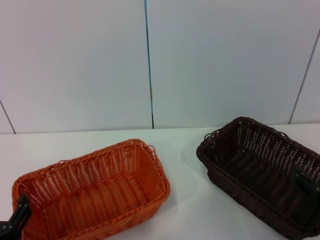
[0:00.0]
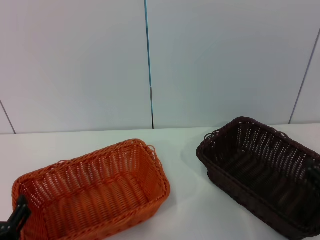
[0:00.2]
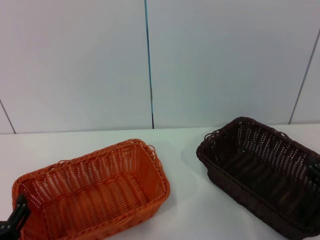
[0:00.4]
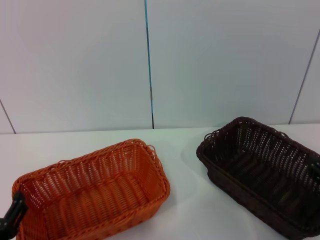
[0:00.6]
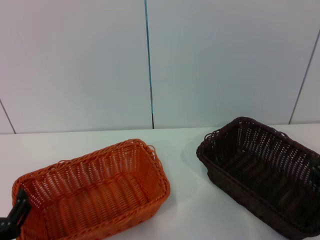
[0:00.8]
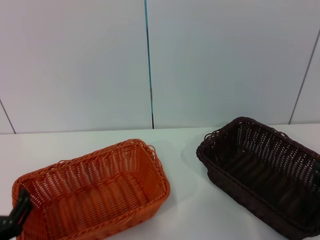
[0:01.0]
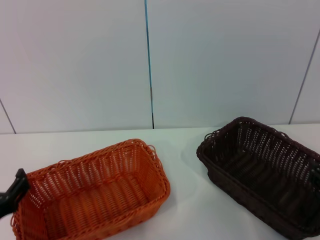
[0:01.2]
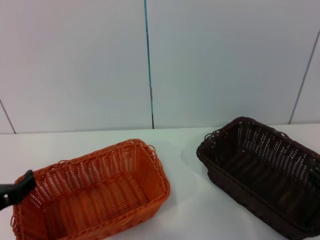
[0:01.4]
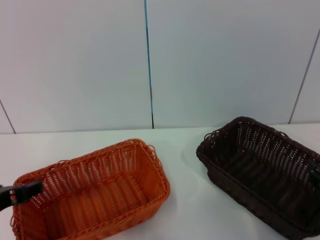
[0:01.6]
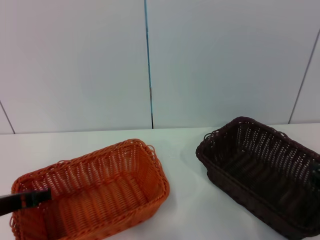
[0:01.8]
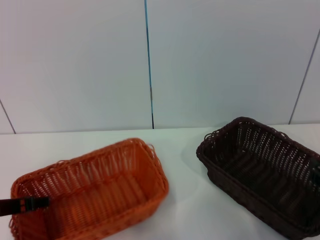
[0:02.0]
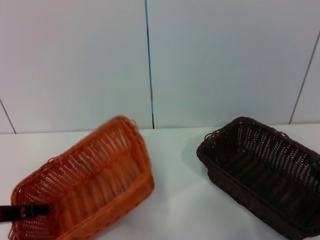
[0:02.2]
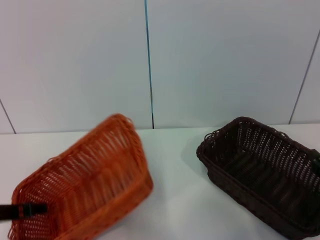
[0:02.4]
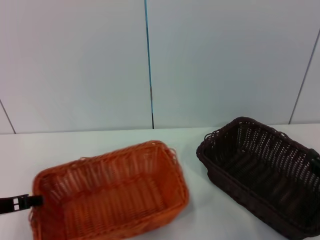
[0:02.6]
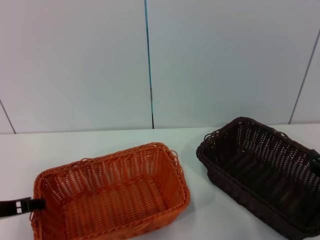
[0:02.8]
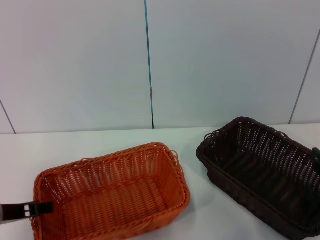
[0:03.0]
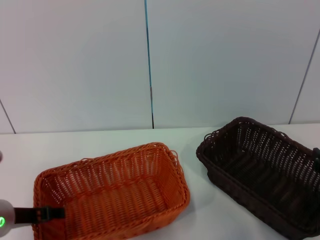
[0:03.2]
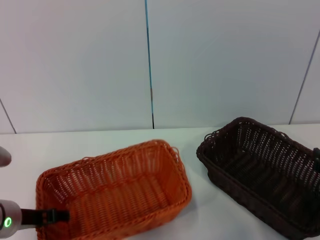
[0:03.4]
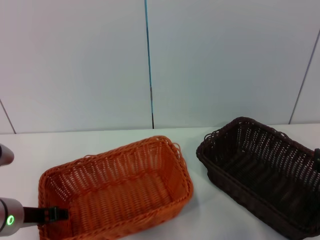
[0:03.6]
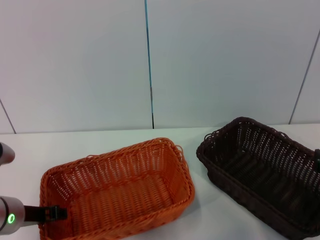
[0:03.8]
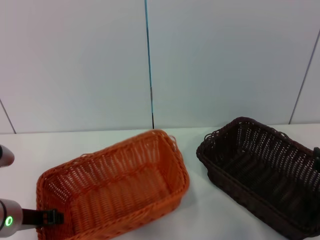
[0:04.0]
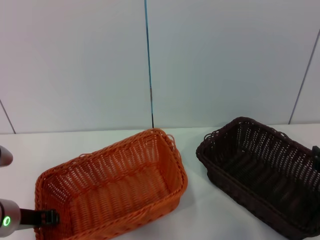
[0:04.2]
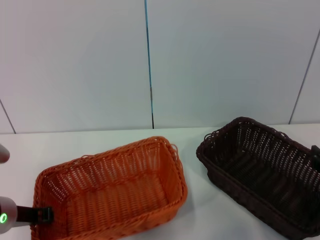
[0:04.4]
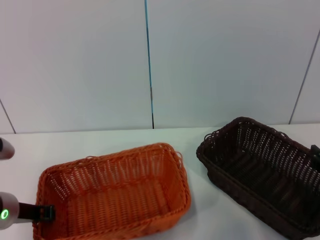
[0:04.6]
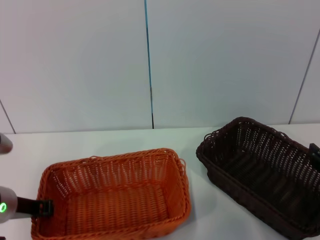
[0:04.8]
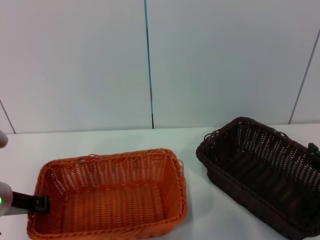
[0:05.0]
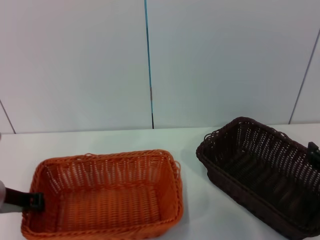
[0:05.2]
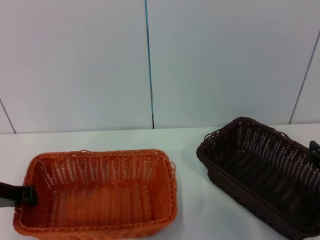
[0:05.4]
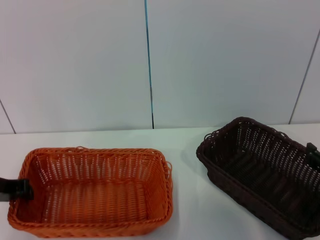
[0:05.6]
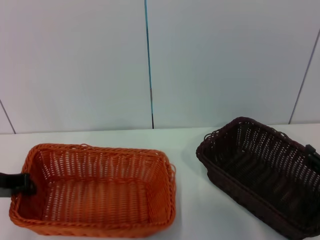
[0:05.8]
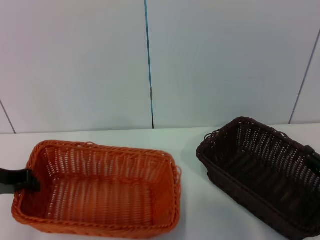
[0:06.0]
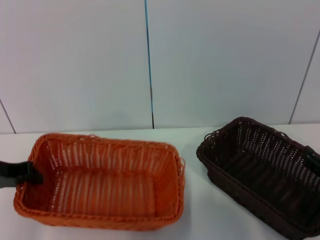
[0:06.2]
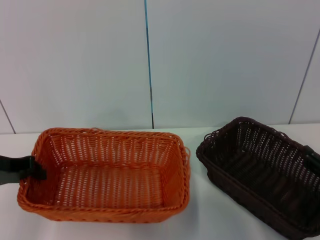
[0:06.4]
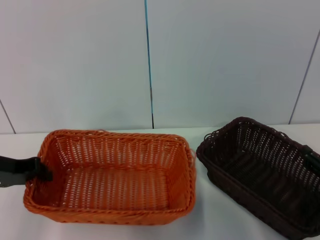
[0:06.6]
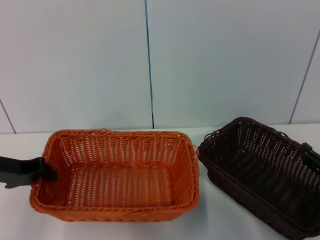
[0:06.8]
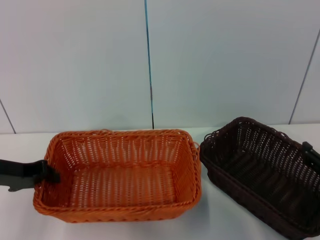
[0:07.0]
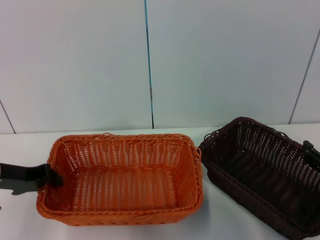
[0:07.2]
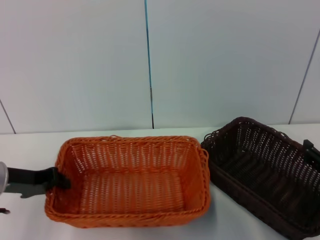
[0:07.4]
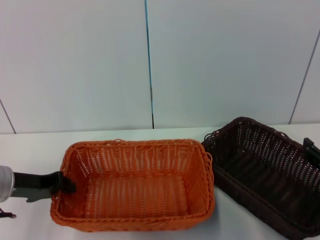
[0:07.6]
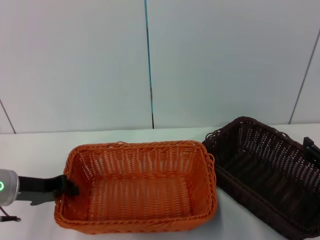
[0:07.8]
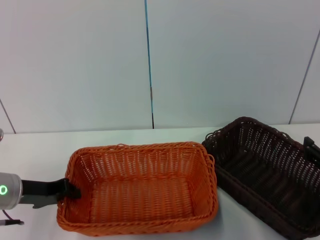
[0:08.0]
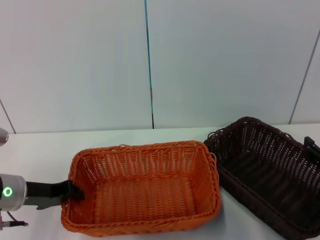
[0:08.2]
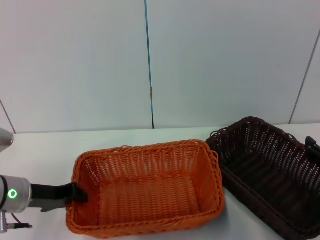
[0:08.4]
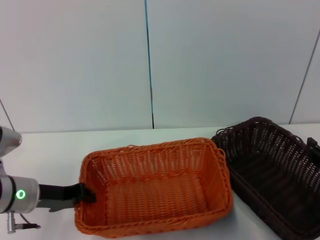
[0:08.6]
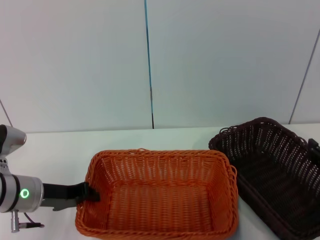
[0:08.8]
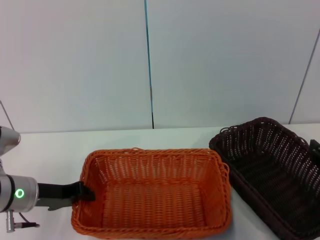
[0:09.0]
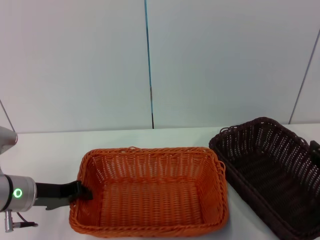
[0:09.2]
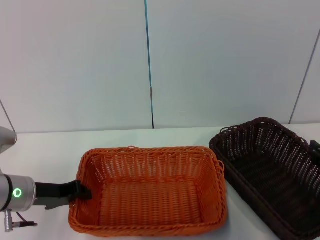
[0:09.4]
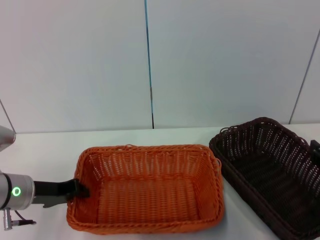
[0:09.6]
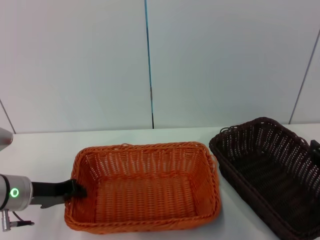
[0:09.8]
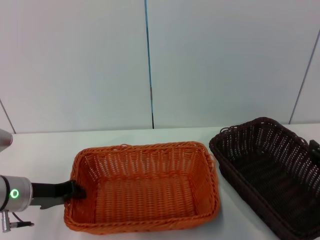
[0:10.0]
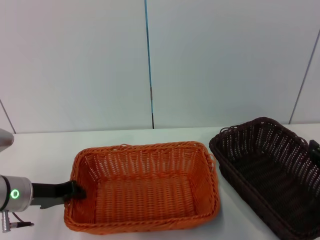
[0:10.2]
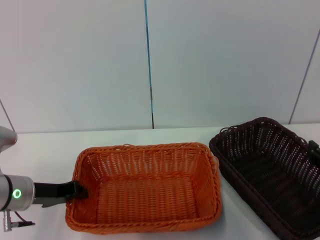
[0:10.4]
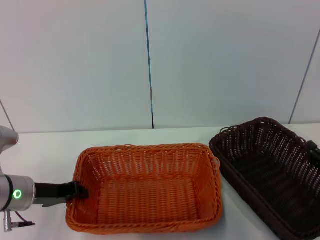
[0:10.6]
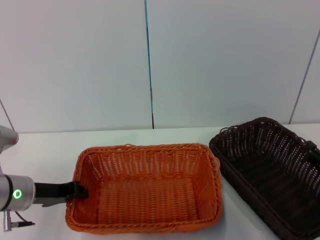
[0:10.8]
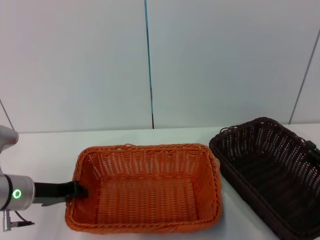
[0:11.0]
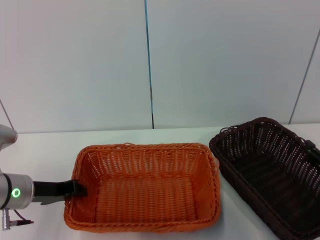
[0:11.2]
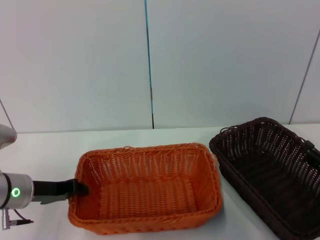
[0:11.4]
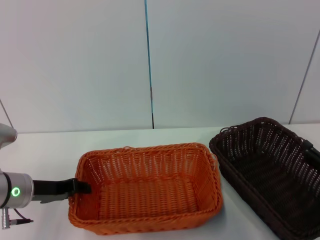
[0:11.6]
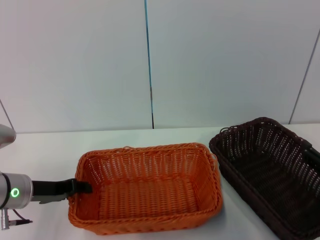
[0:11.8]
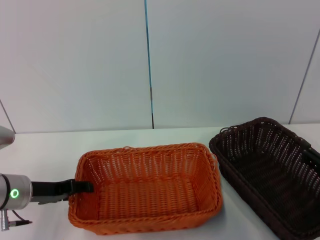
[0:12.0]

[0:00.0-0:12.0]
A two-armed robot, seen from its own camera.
Step, 0:00.0 to 0:05.4: Pick up the light basket with the left gripper.
Step, 0:05.6 to 0:11.6: Place the light basket in the center of view with the left gripper.
0:00.0 to 0:01.6: The left gripper heads upward and forward, covering approximately 10 cm.
0:01.6 to 0:03.0: The left gripper travels forward by some 5 cm.
0:03.0 to 0:04.4: The left gripper closes up.
0:04.4 to 0:06.0: The left gripper is displaced upward and to the left by about 10 cm.
0:06.0 to 0:07.6: The grippers move only a little.
0:07.6 to 0:09.0: The grippers make only small movements.
0:09.0 to 0:10.4: Both grippers stay about where they are.
0:10.4 to 0:12.0: The left gripper opens up.

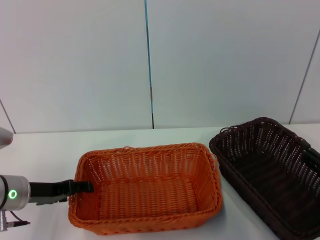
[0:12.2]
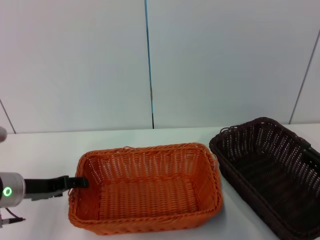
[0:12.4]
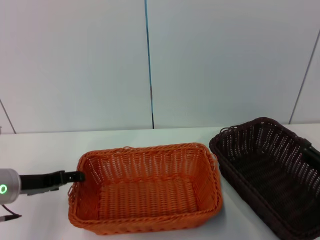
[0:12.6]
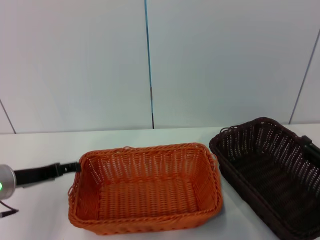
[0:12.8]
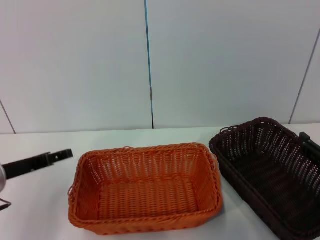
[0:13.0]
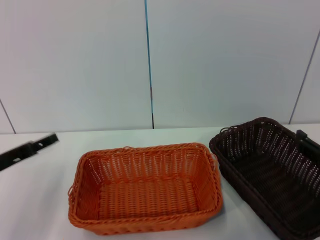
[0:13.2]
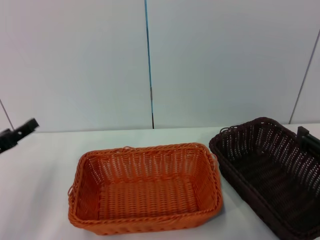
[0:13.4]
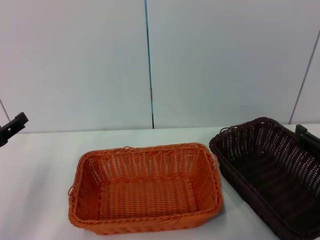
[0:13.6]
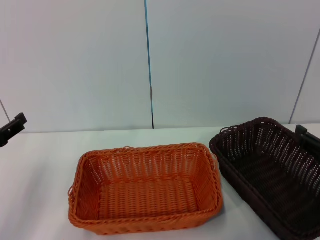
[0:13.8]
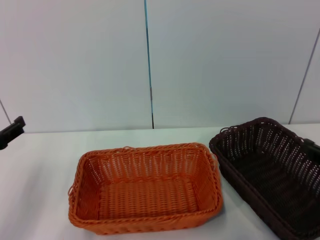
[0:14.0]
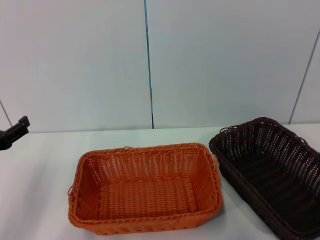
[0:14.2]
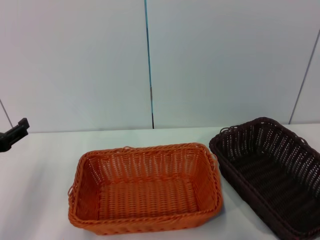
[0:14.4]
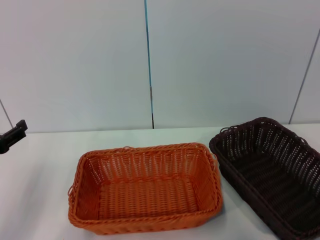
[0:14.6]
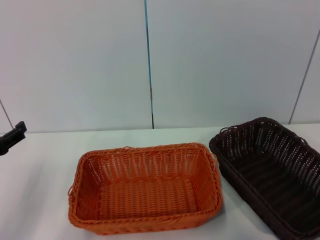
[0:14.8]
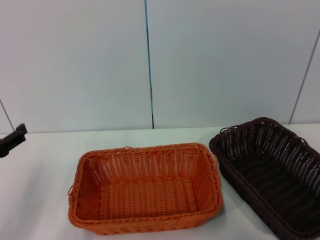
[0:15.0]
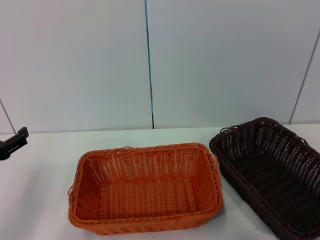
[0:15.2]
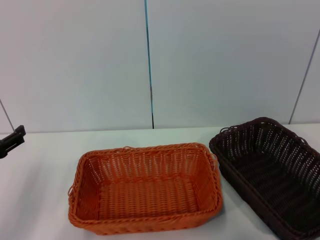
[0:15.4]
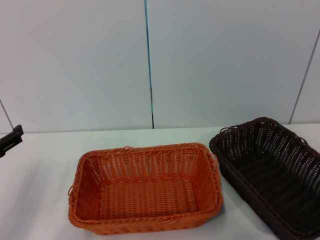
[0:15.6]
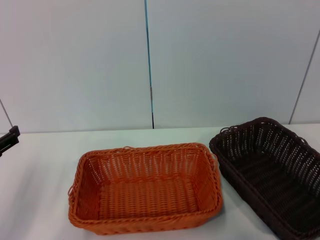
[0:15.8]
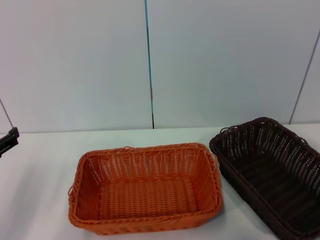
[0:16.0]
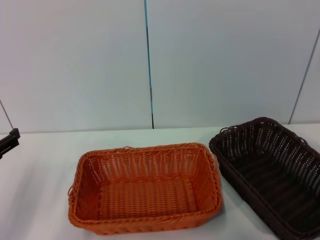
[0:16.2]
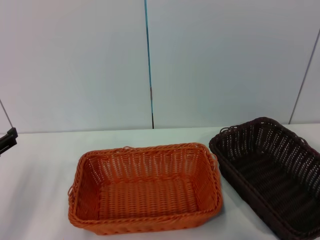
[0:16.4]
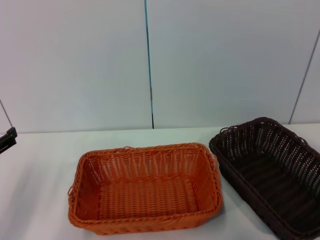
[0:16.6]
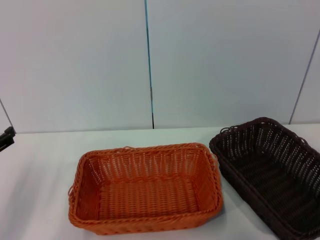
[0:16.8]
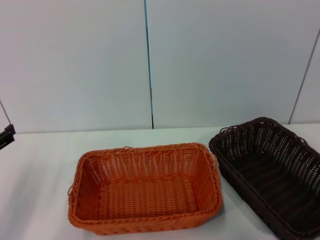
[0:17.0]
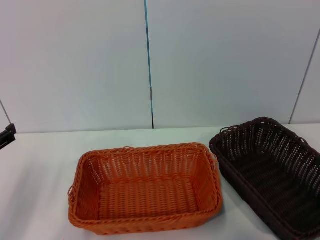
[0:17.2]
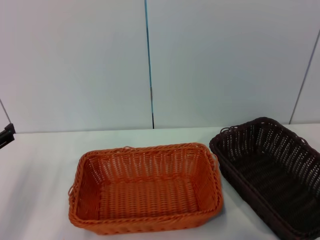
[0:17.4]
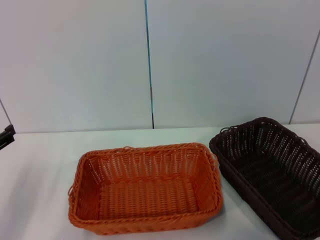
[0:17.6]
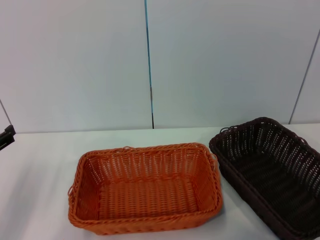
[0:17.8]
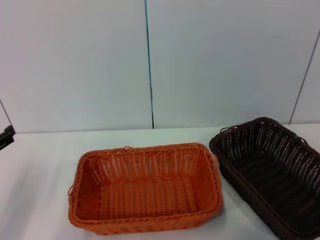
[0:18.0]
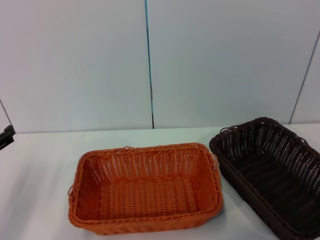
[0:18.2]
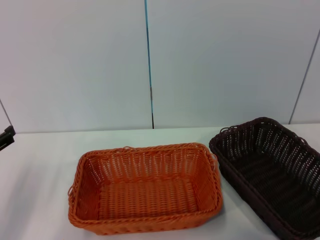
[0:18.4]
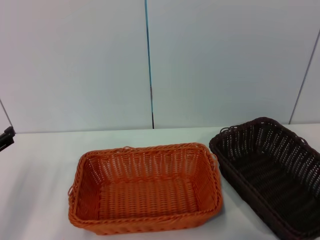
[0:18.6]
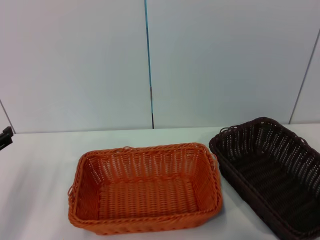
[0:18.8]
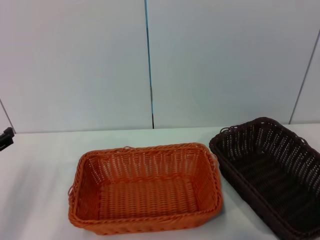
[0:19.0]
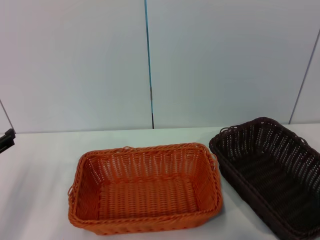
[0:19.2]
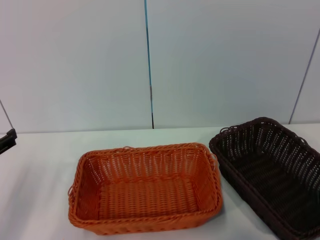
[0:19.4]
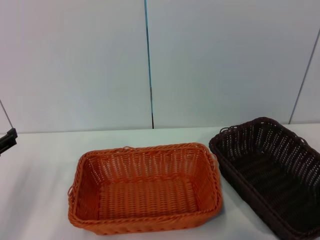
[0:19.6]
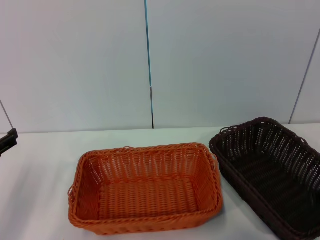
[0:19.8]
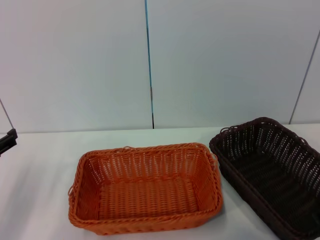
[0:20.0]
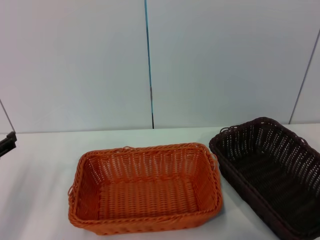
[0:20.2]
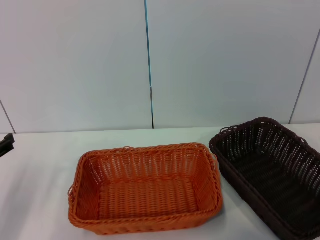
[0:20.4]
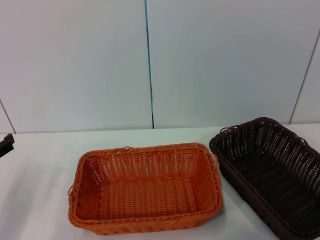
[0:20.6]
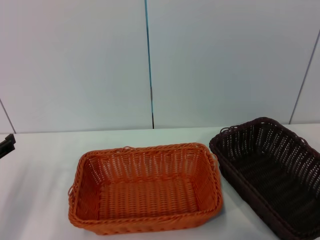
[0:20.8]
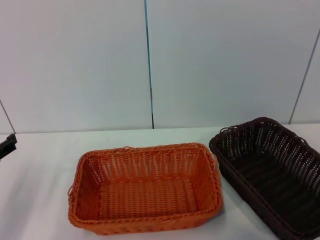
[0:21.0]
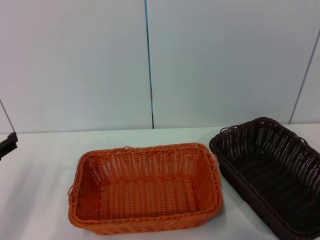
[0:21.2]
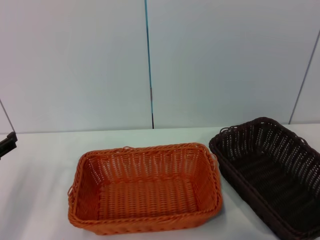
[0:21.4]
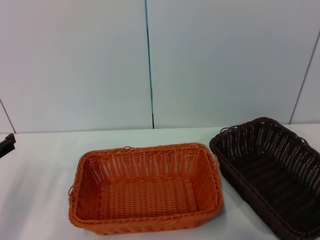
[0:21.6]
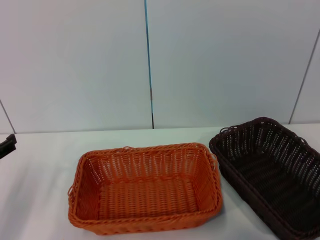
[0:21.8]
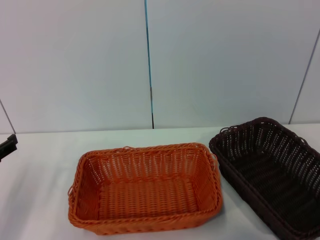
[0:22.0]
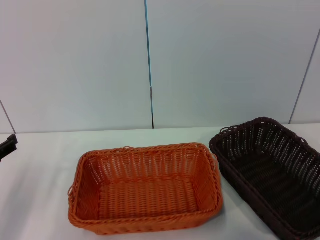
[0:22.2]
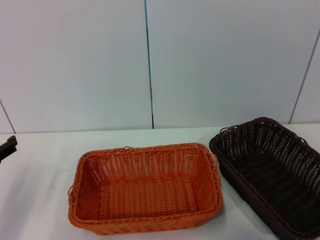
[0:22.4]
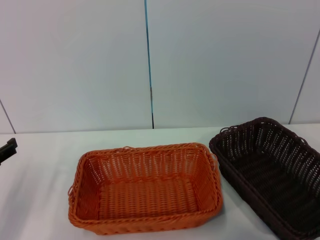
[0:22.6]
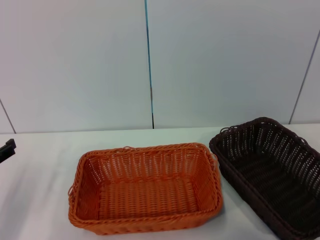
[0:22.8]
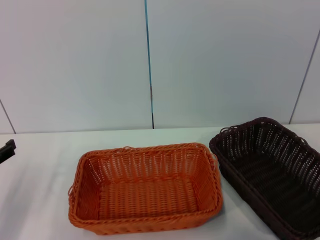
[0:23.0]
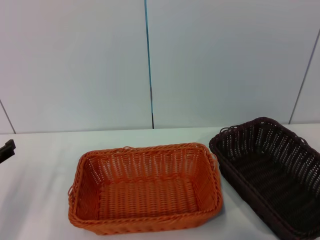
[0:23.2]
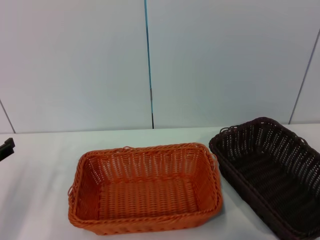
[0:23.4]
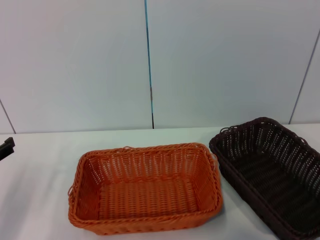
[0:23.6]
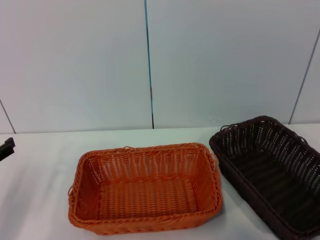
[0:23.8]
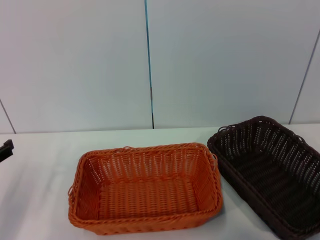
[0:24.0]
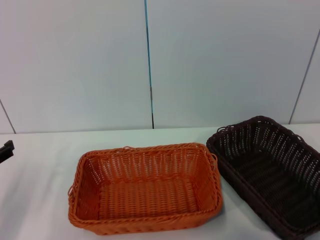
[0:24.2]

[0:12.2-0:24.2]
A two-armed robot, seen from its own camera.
0:12.2 to 0:13.8: The left gripper goes roughly 10 cm to the left and backward.
0:22.6 to 0:24.2: The right gripper moves downward, roughly 5 cm.
